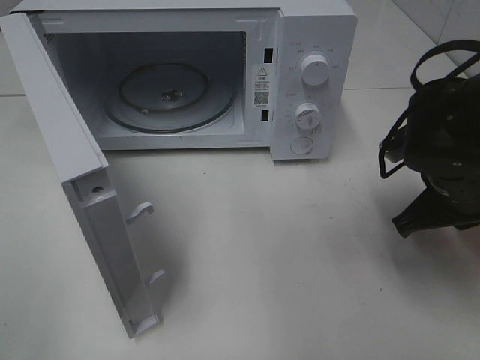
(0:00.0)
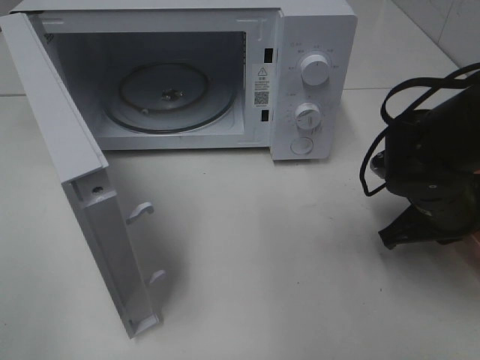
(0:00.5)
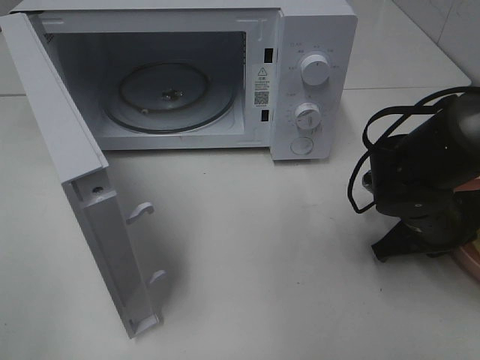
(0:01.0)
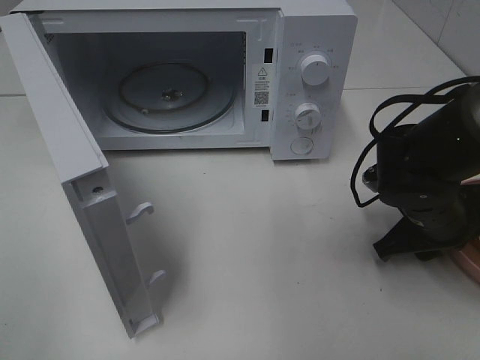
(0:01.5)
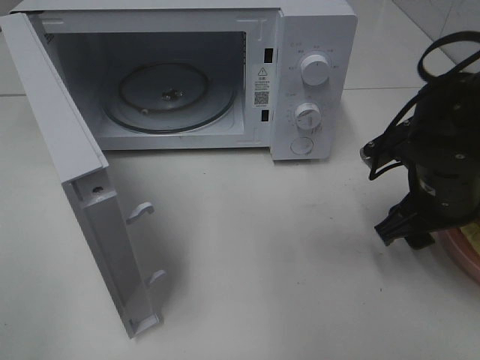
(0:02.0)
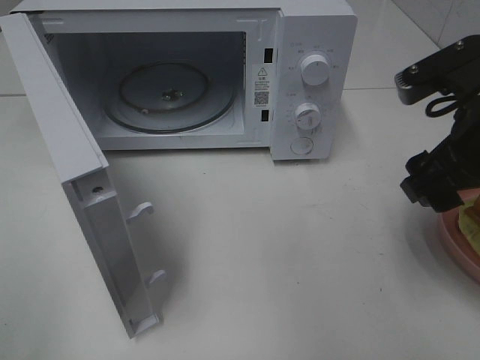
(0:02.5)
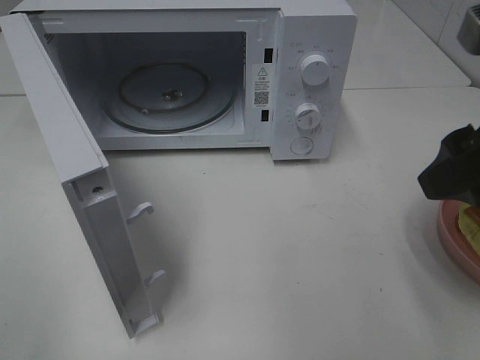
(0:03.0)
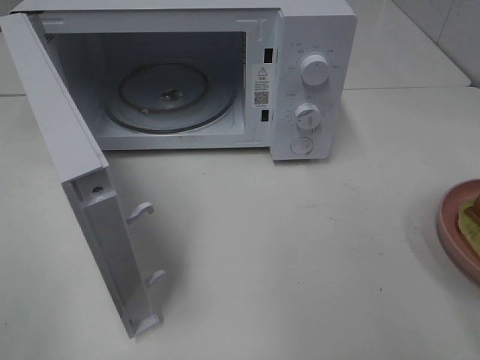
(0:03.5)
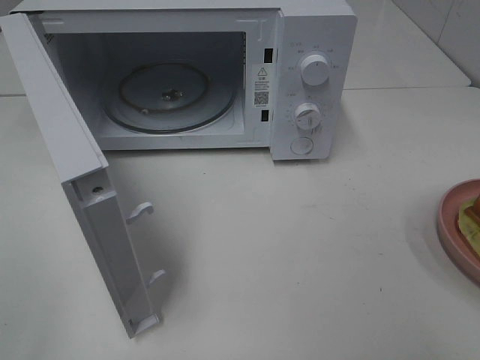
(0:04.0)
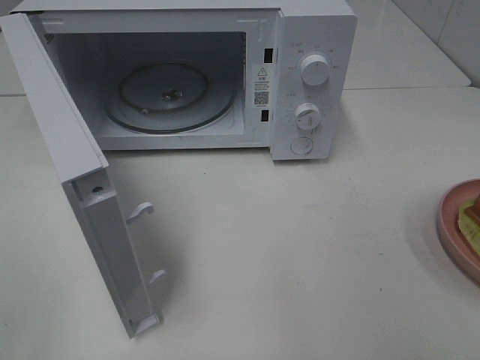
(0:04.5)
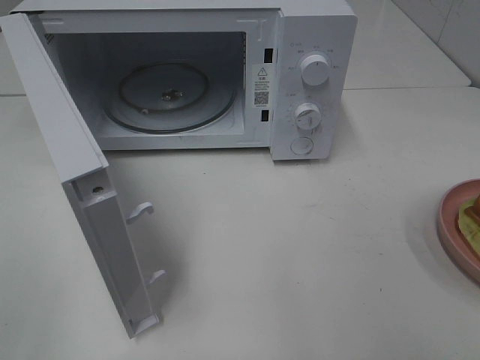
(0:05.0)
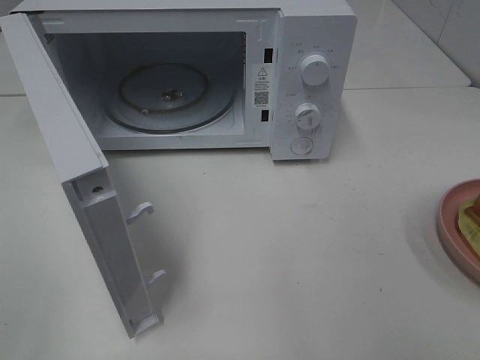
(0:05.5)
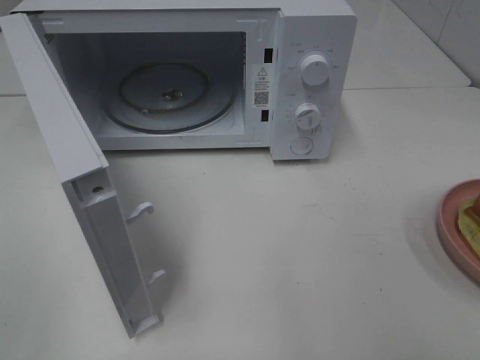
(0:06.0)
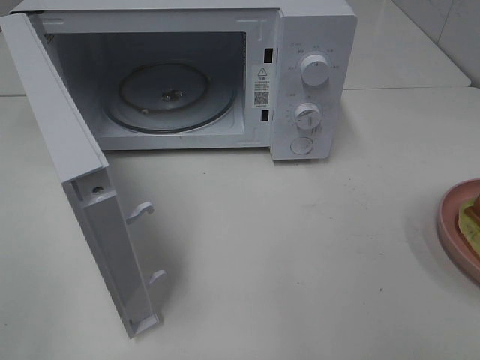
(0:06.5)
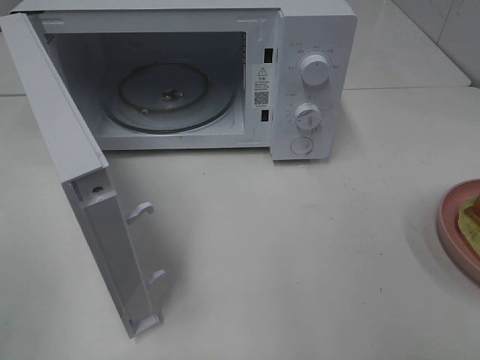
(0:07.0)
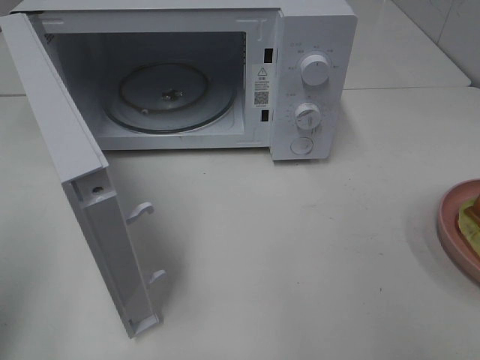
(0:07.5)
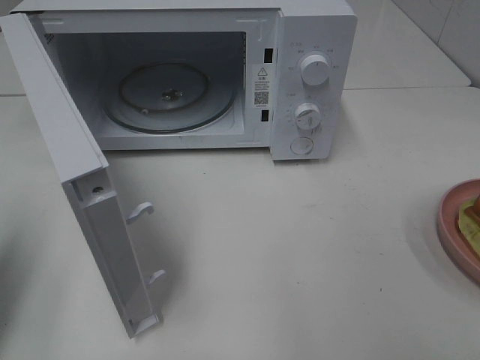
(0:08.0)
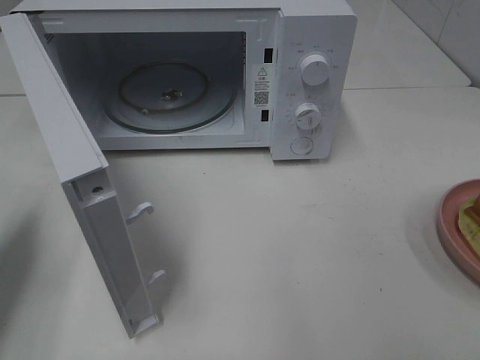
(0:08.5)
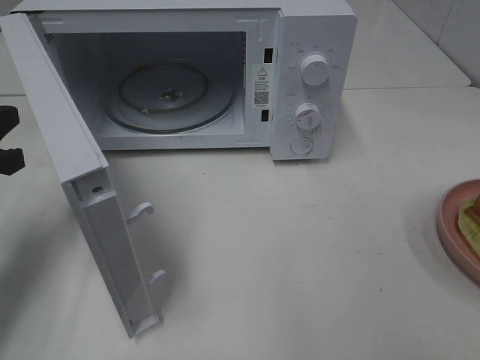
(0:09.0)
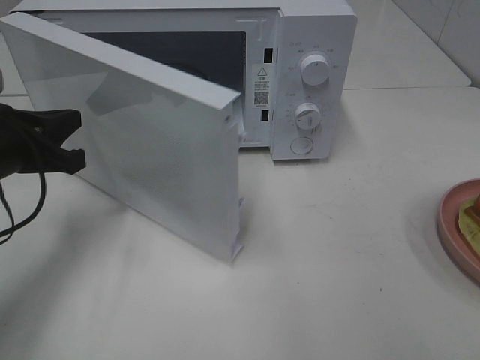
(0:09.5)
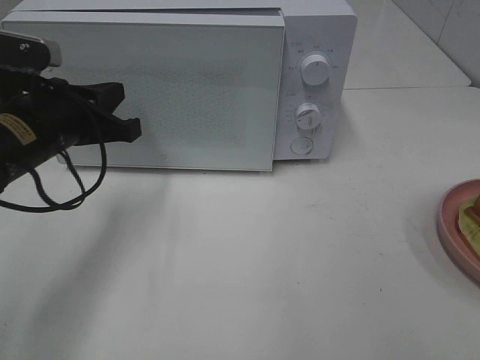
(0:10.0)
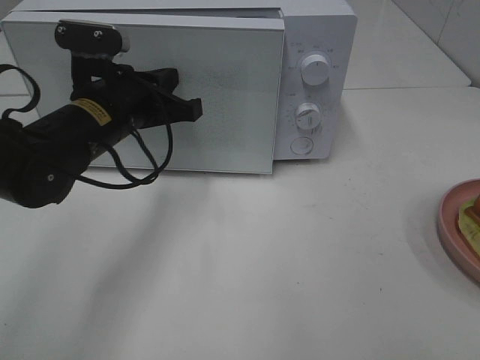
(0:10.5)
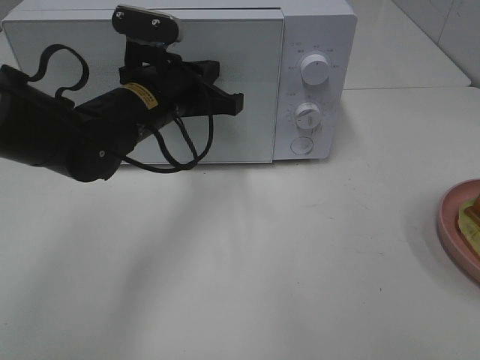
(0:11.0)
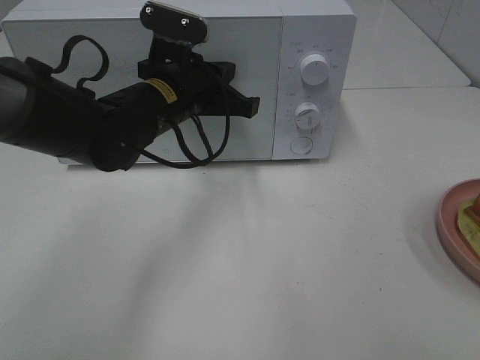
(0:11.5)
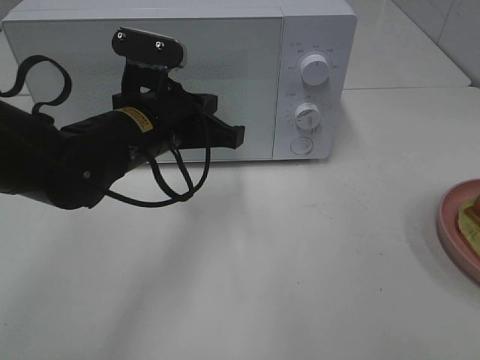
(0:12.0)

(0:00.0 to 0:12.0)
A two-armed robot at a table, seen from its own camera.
Task of the whole recording: Heat Sandwich.
Step, 0:00.0 - 0:02.5: Right hand: place the plate on the table.
0:00.0 - 0:02.0: The right gripper opens its fingers.
0:02.0 - 0:04.0: The right gripper heads backward and upward, covering about 25 cm.
0:06.0 - 0:08.0: The left gripper is displaced forward by some 15 cm, and closes.
0:08.0 - 0:10.0: The left gripper shifts roughly 20 cm to the right, forward and downward.
0:10.0 - 0:12.0: The left gripper moves to the right, some 10 cm.

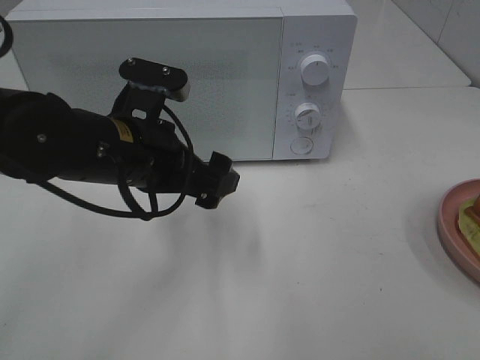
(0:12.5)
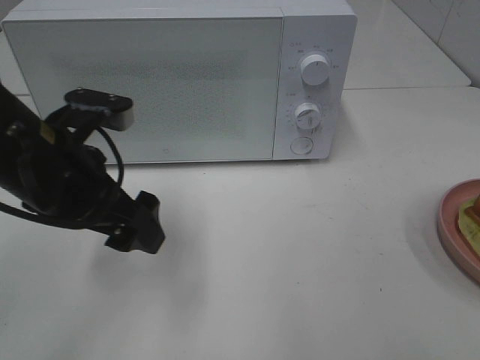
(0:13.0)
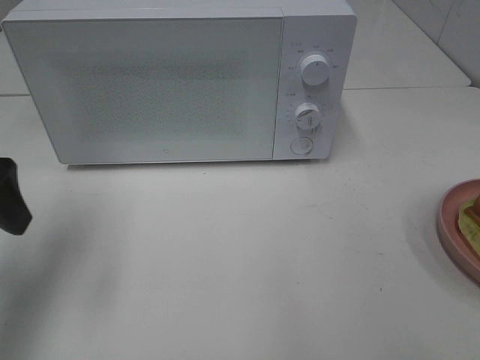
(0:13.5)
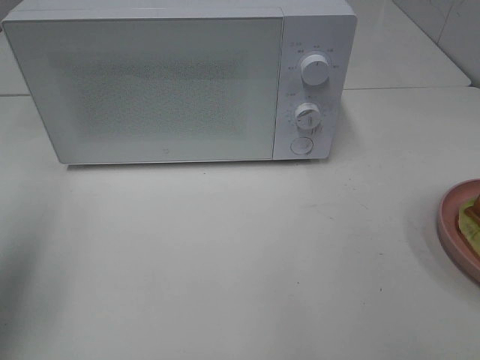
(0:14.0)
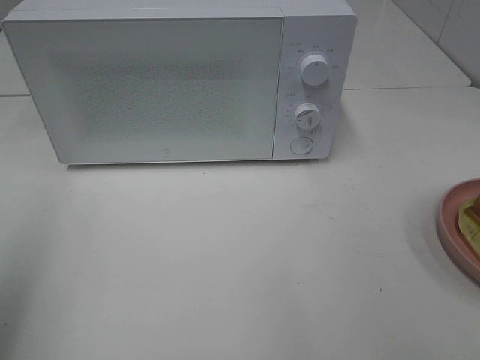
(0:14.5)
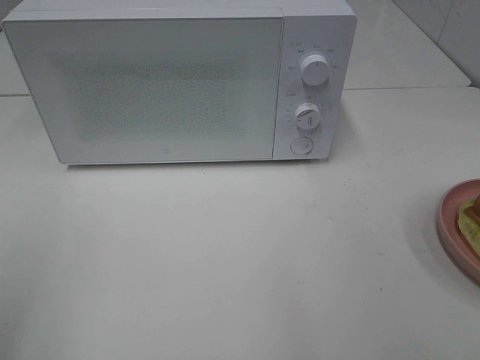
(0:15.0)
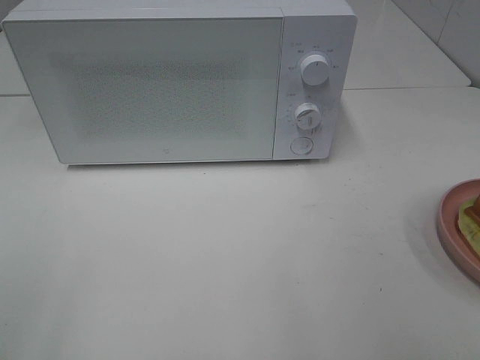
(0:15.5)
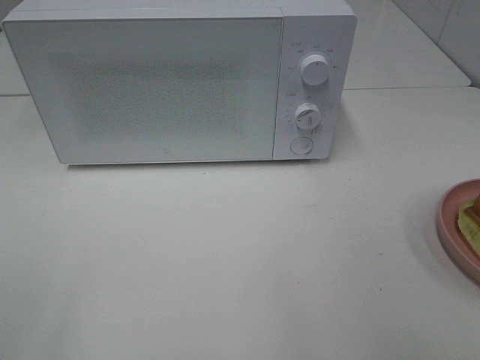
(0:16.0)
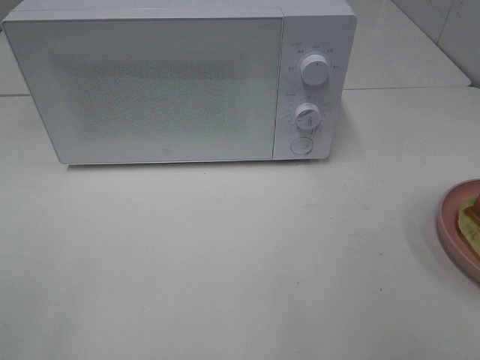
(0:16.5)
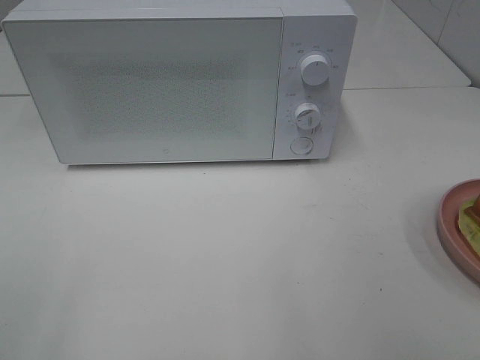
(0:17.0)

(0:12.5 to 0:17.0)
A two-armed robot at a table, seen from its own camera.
Task of the whole recording: Heat Sandwich.
0:12.5 - 0:14.5: The left gripper goes roughly 30 cm to the left, upward and backward.
0:14.5 - 0:17.0: The left gripper travels backward and downward by some 15 cm.

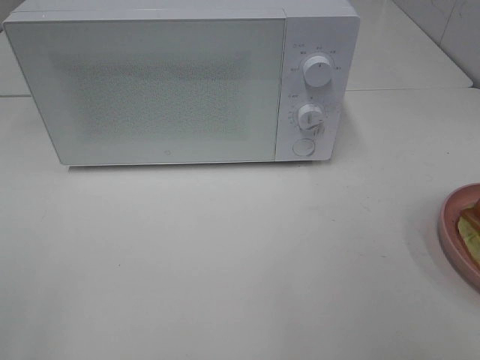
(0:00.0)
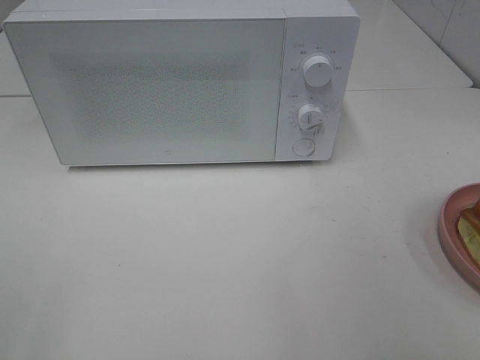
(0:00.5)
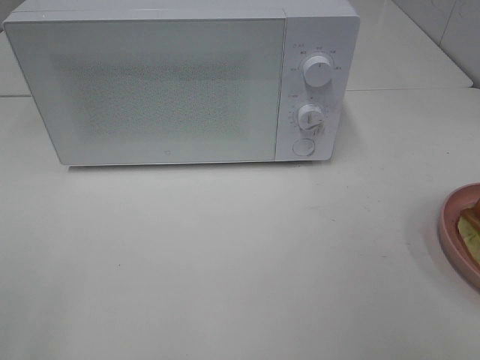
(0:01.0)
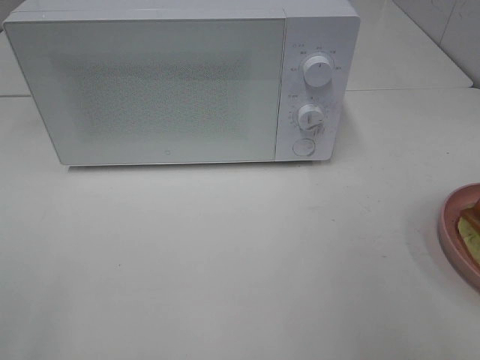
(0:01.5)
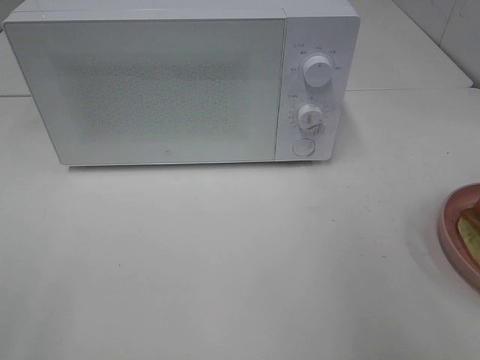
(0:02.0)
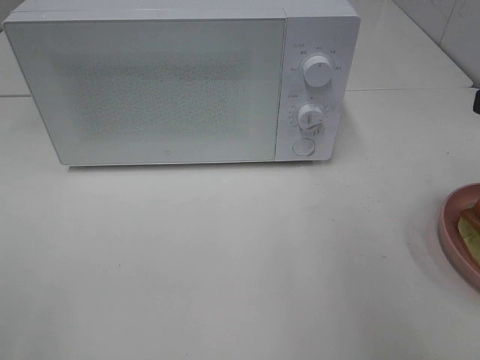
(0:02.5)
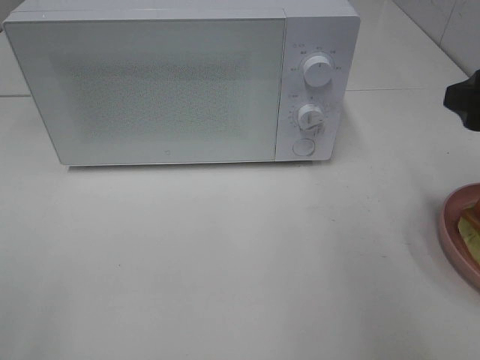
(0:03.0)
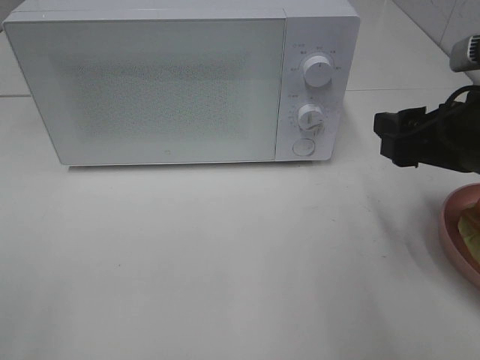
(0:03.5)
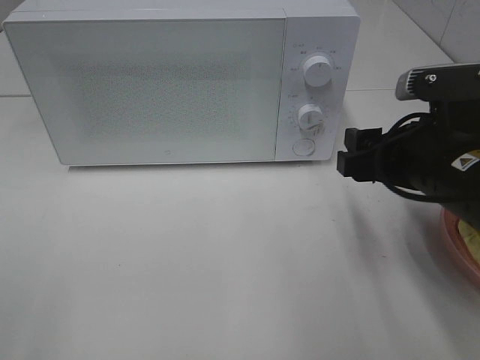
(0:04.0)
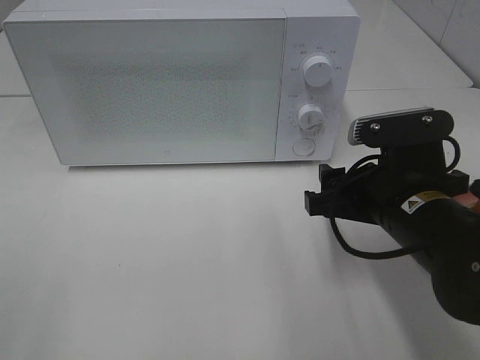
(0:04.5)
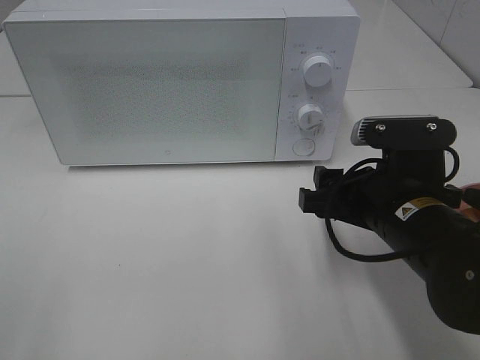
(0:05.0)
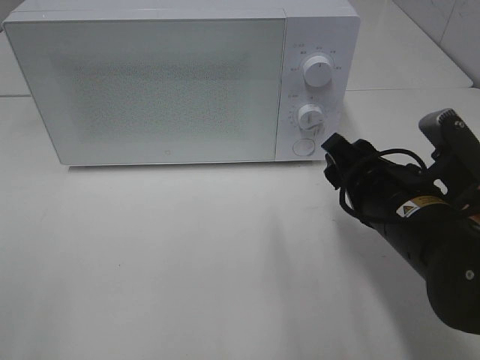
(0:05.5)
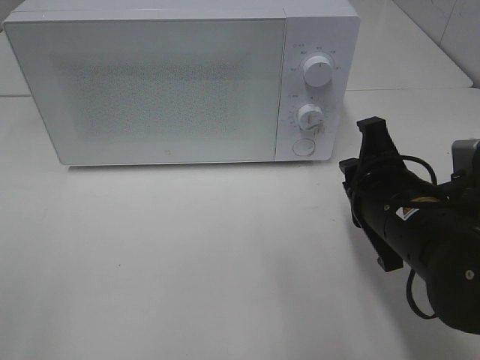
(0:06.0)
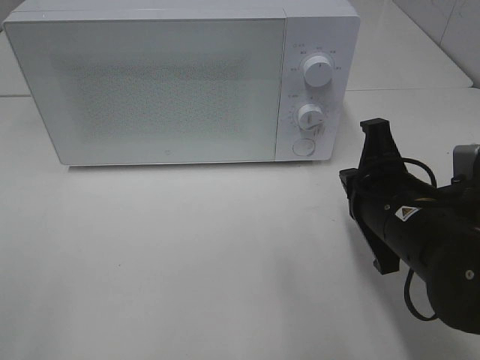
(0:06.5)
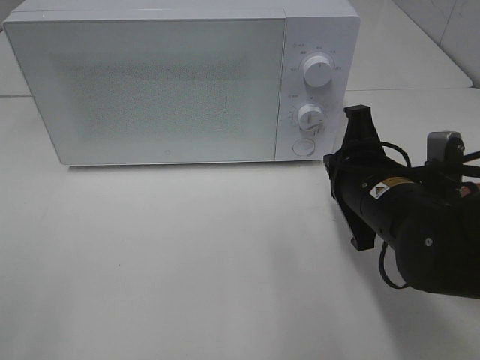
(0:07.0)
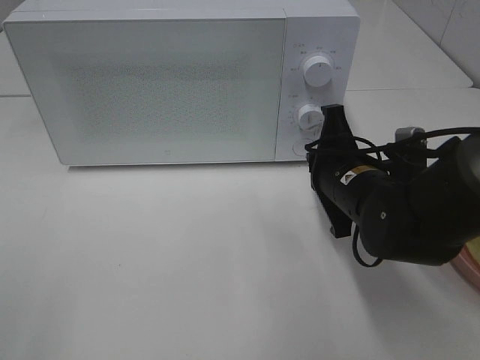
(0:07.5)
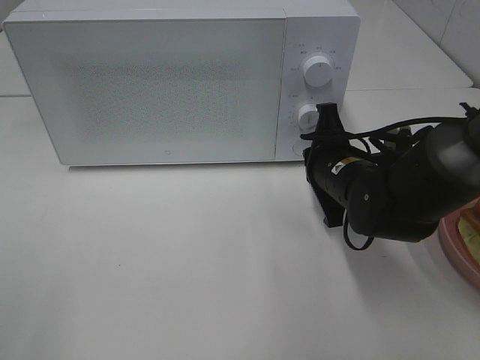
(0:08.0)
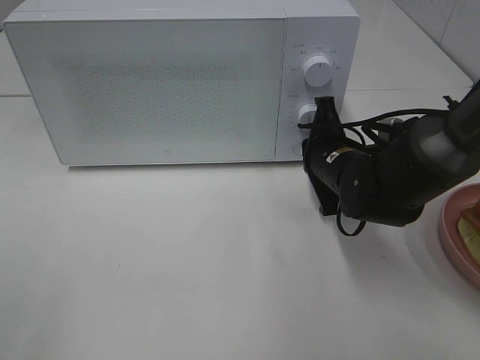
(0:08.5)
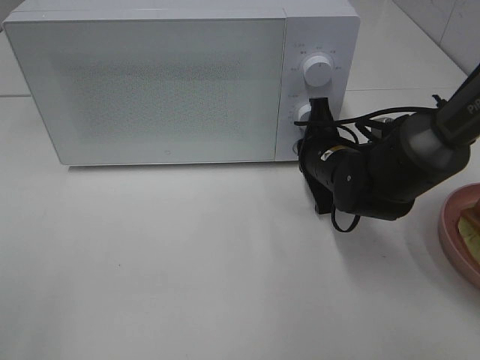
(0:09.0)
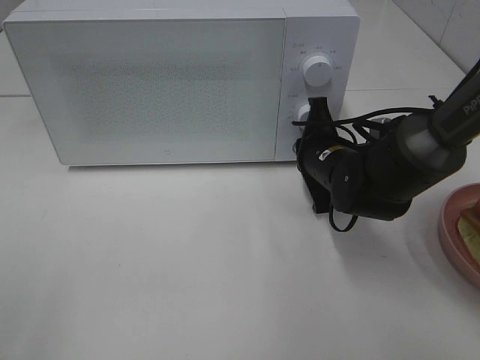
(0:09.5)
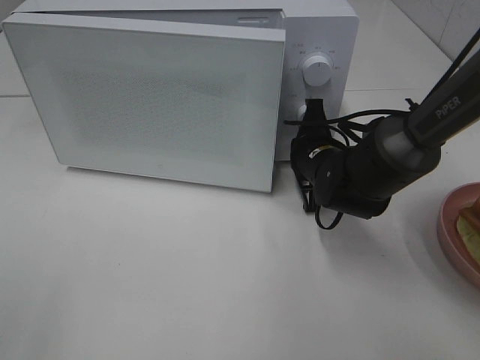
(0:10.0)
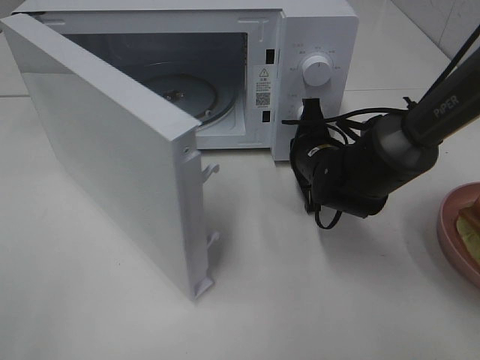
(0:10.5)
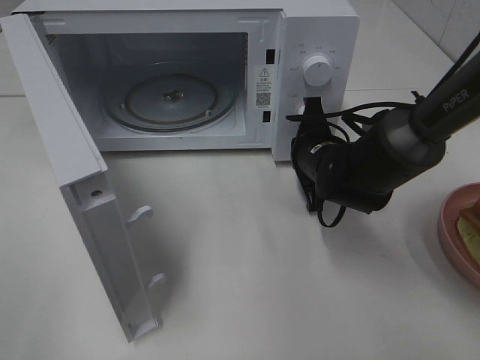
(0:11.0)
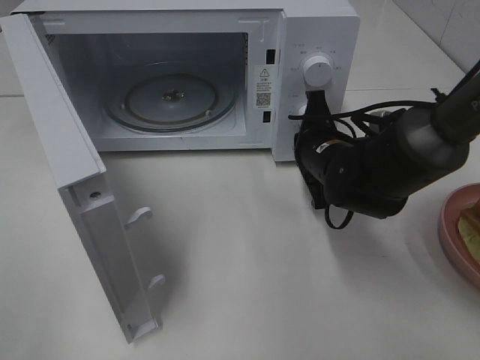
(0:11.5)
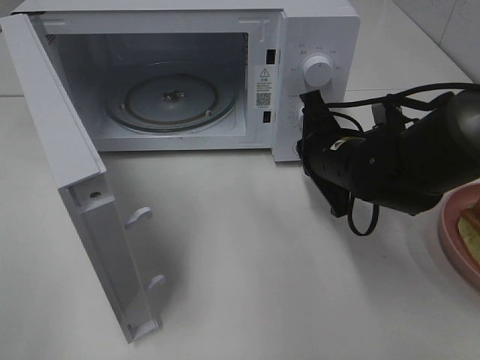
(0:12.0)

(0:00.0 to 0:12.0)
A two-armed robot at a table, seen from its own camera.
Task of the whole recording: Heat Sandwich.
Step, 0:00.0 - 0:12.0: Right hand: press the switch.
0:02.0 - 0:04.0: The right gripper travels downward, to the left and forward by about 15 cm.
0:04.0 - 0:06.0: The right gripper ends up about 5 cm from where it was, and closes up.
0:06.0 - 0:08.0: The right gripper moves forward, roughly 10 cm.
0:08.0 - 0:10.0: The right gripper shifts approximately 5 cm forward.
0:10.0 - 0:12.0: The right gripper heads backward, covering some 5 cm.
